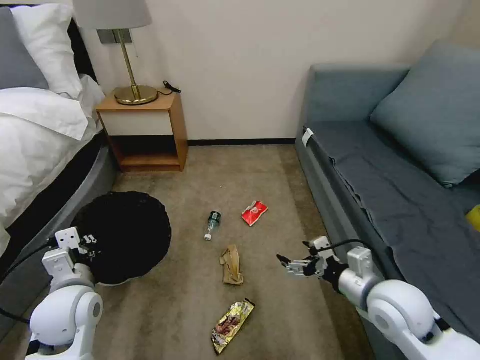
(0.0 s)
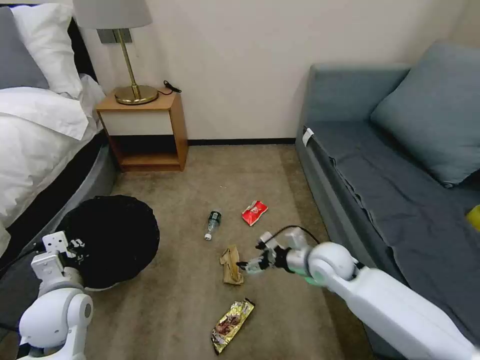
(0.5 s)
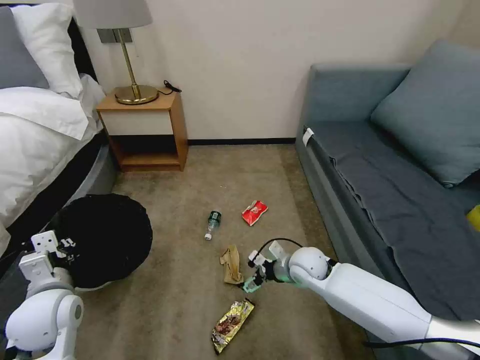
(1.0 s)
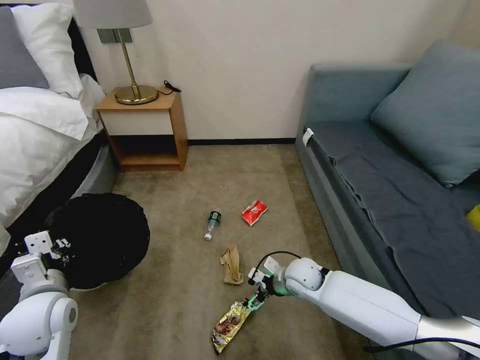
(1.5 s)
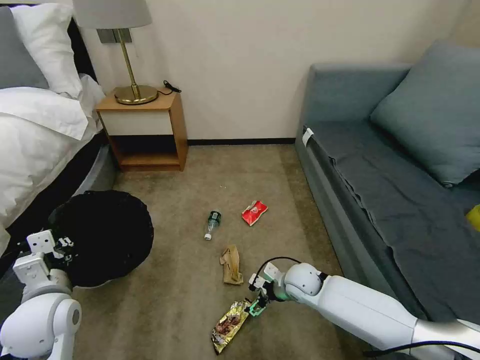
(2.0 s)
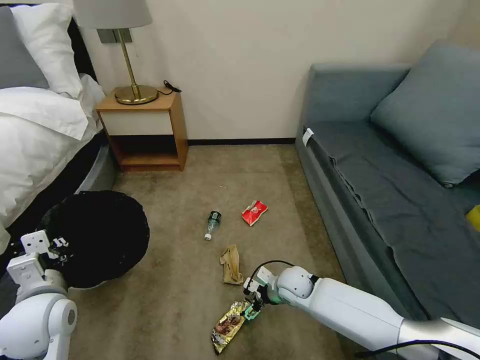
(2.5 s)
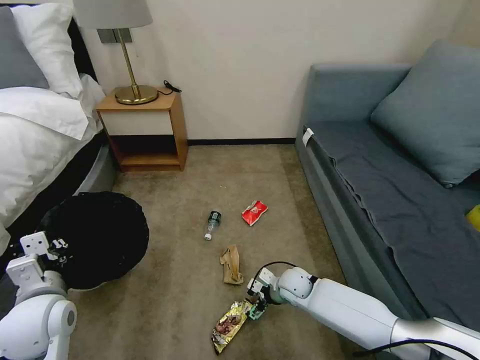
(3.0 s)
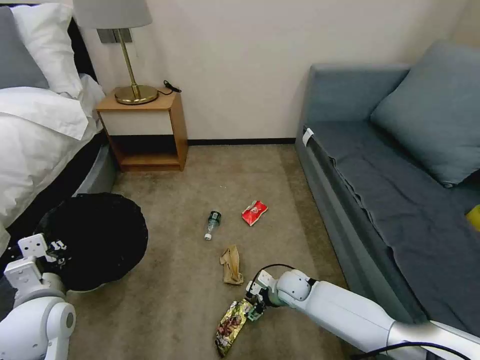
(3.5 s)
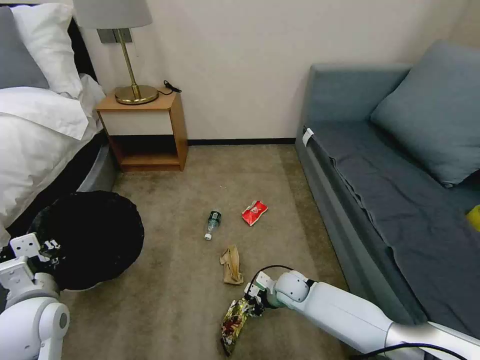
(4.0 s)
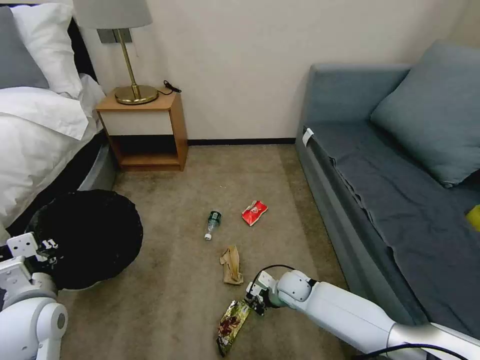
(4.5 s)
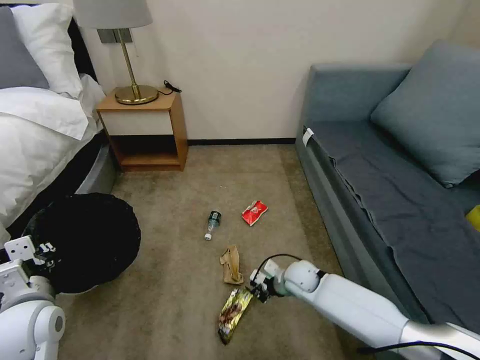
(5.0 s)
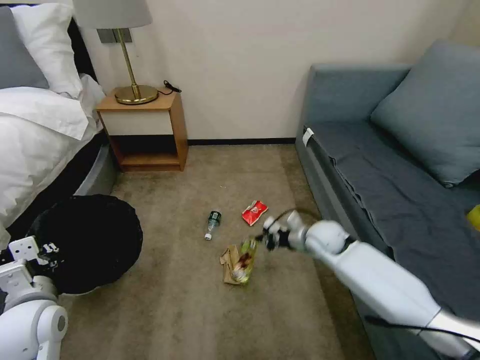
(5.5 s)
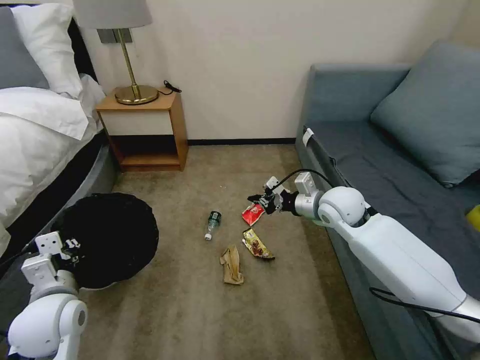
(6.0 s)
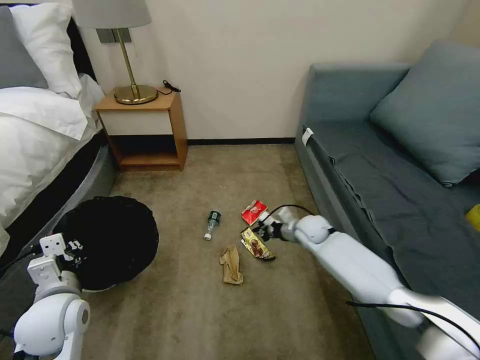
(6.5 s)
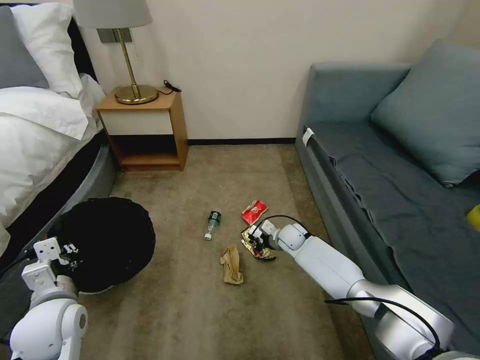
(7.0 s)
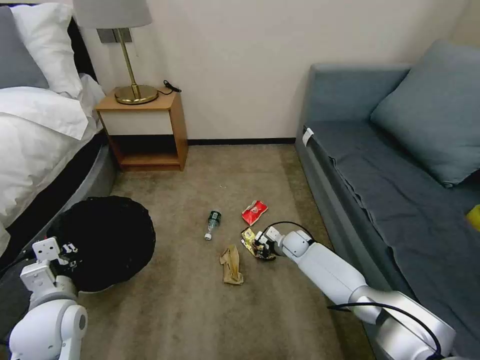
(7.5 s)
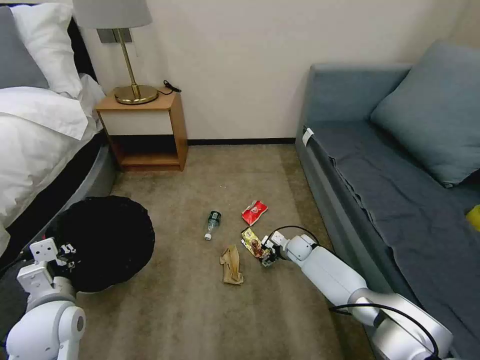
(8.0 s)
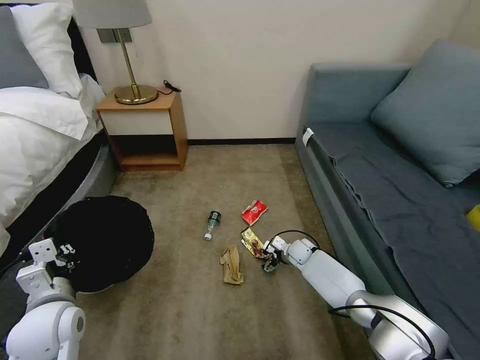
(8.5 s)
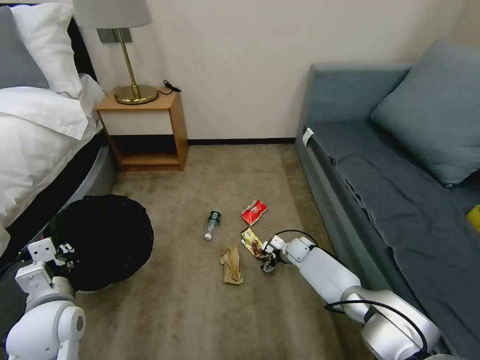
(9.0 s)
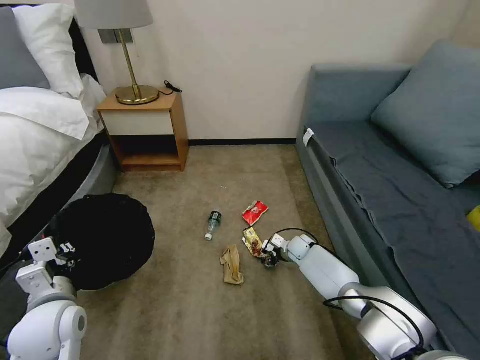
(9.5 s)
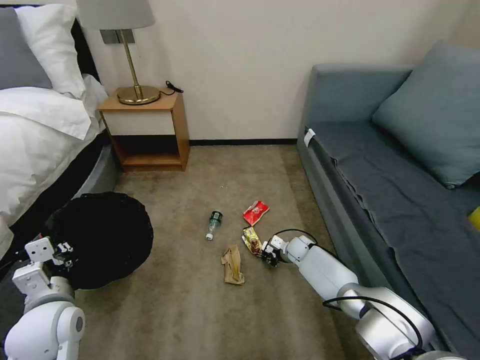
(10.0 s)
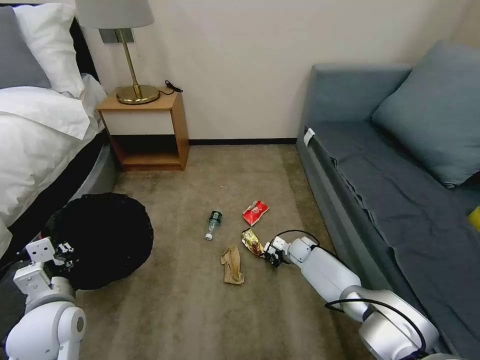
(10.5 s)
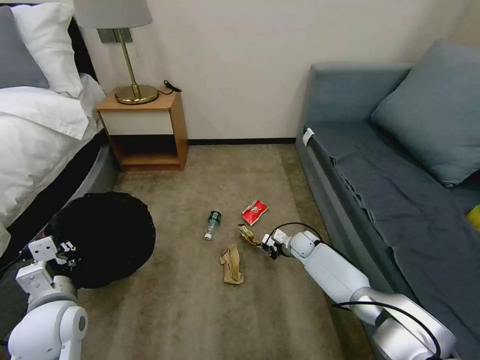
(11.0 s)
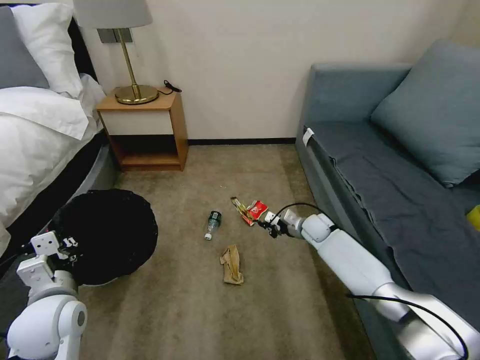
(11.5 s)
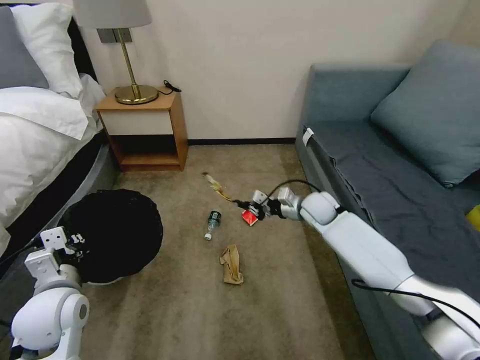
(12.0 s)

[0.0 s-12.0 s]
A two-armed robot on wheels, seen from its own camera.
Task of the whole recording: Pick up the trash bin, then pick up the garbage on the floor and place it into the trash bin.
0.0 to 2.0 s: The right gripper heads downward, forward and to the left, covering about 25 cm.
2.0 to 4.0 s: The right gripper changes place by some 5 cm, and closes up.
4.0 to 6.0 s: The right gripper goes some 25 cm upward, and closes its fingers.
6.0 to 8.0 s: The right gripper moves downward, approximately 25 cm, and opens.
8.0 to 10.0 s: The right gripper closes up.
10.0 to 12.0 s: The right gripper heads upward, covering about 20 cm.

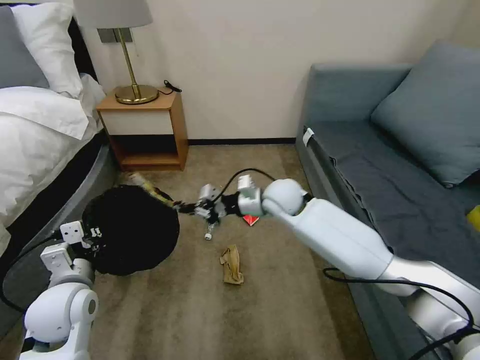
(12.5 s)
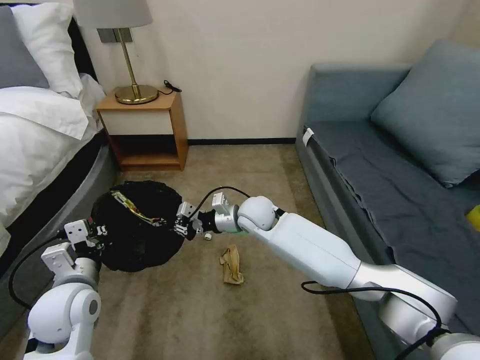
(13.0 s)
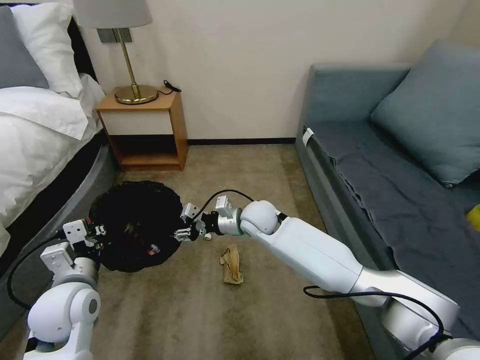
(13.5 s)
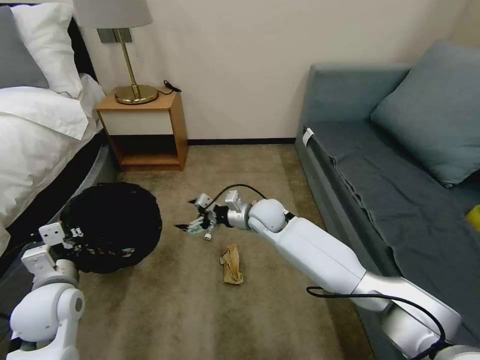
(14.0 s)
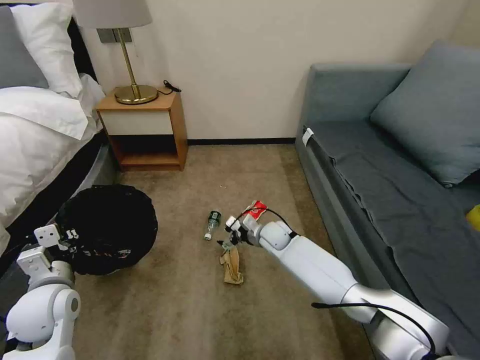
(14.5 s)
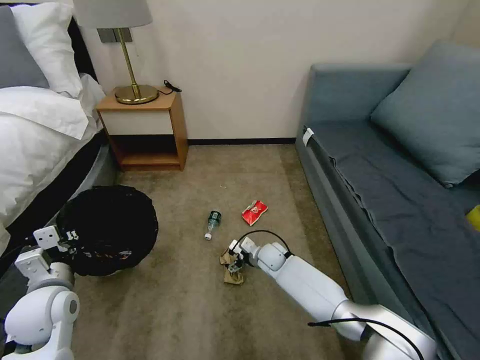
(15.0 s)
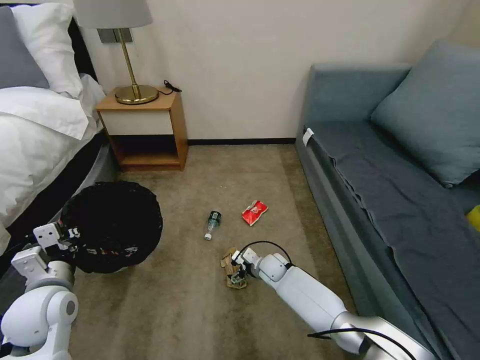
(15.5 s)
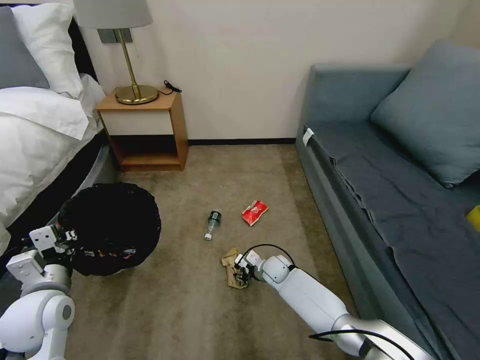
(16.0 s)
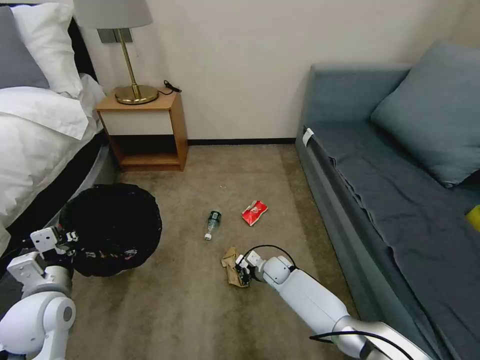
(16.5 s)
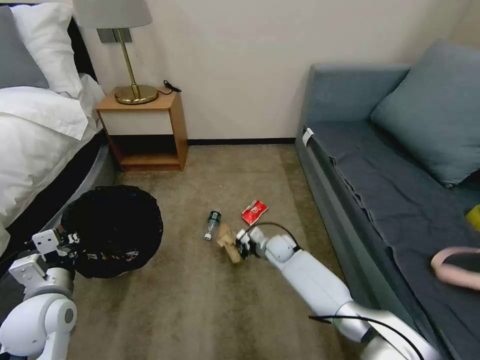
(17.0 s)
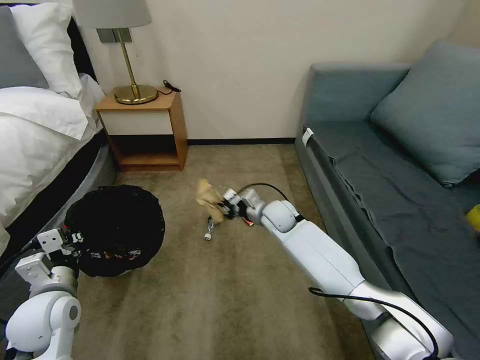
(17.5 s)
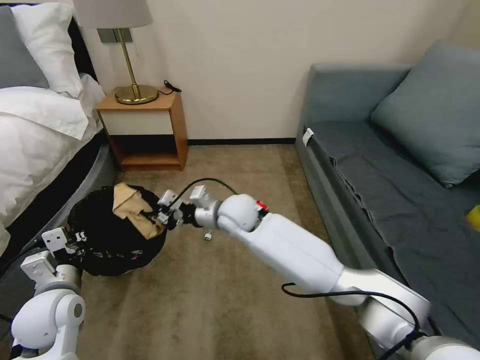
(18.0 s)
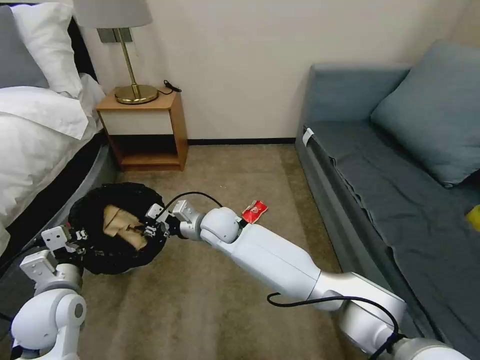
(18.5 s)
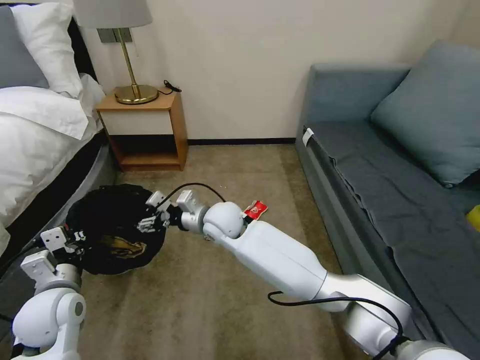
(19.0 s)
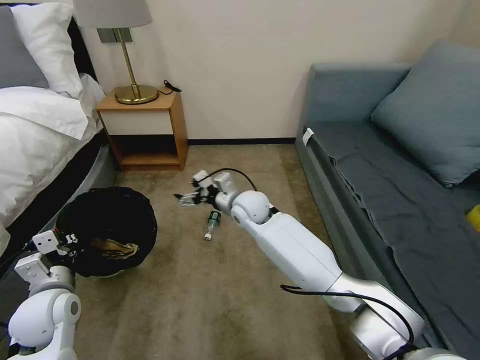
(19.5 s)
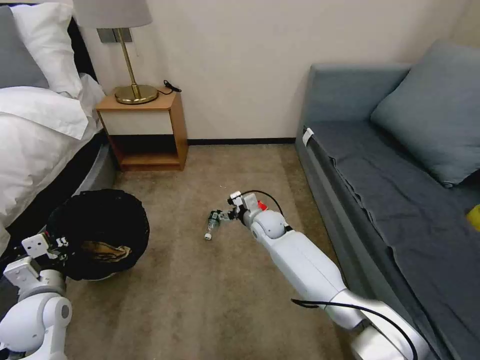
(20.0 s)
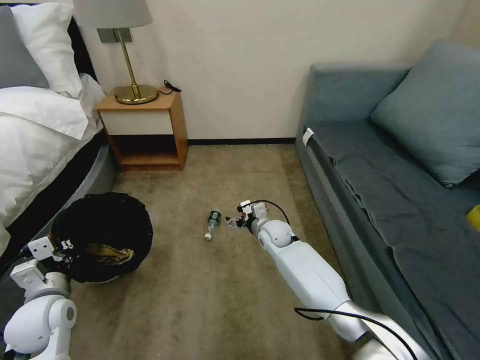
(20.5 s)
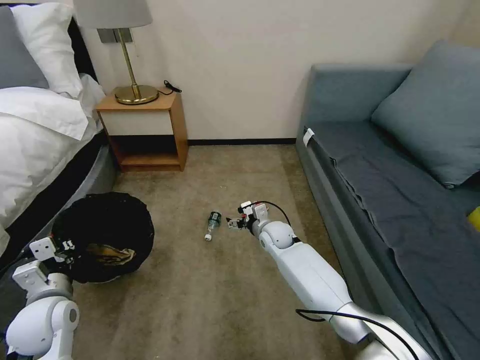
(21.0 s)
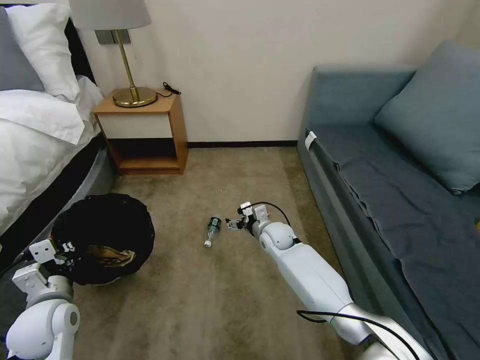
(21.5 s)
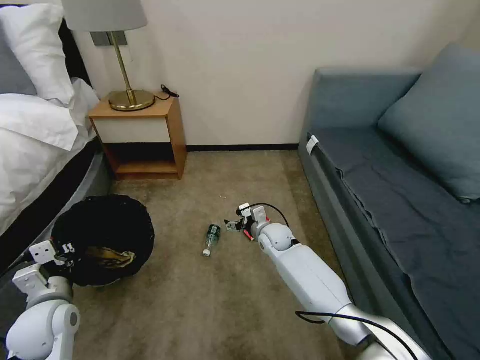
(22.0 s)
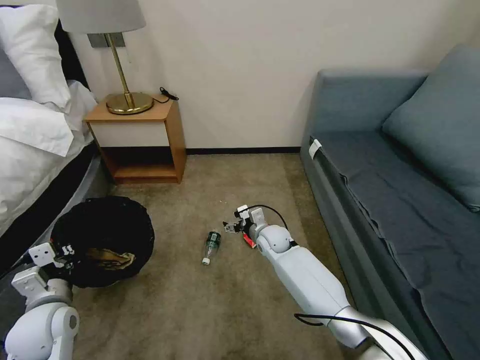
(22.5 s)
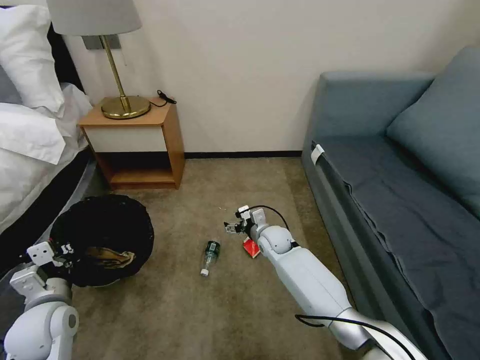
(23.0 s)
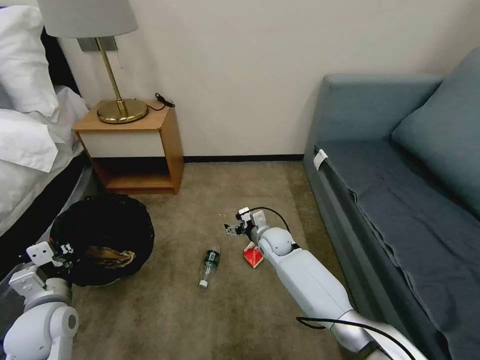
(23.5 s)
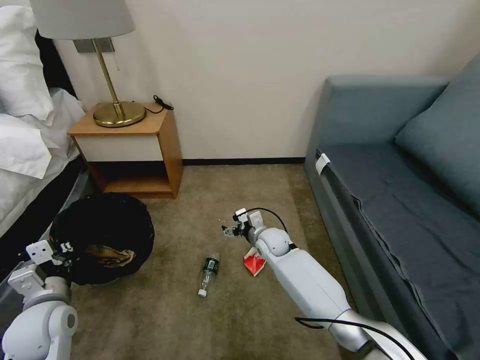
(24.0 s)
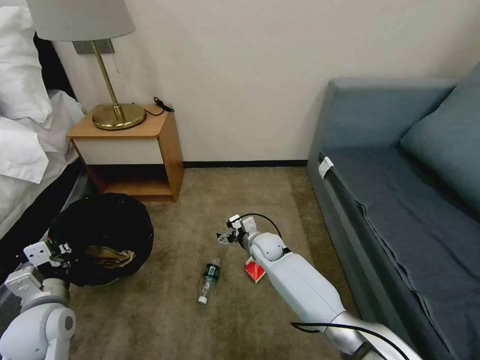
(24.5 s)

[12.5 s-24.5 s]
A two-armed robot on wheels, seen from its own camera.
Task of the whole recording: Pick up the trash bin, then pick up the garbage on the floor and place it into the trash bin.
12.5 to 14.5 s: The right gripper travels downward by some 15 cm, and opens.
14.5 to 16.5 s: The right gripper shifts some 15 cm downward and backward, and closes up.
16.5 to 18.5 s: The right gripper moves upward and to the left, roughly 30 cm.
18.5 to 20.5 s: The right gripper moves to the right and downward, roughly 20 cm, and opens.

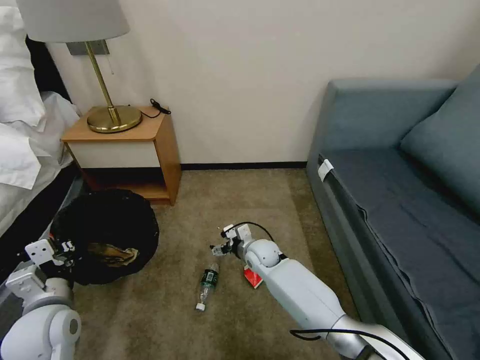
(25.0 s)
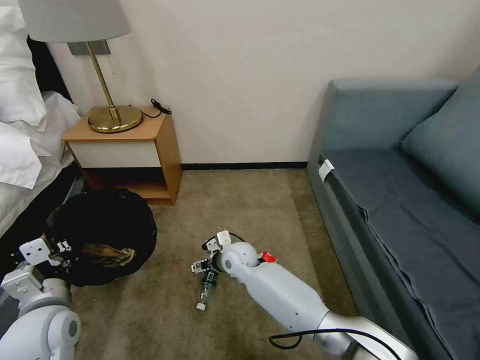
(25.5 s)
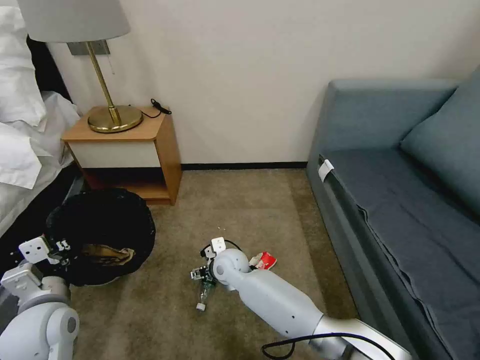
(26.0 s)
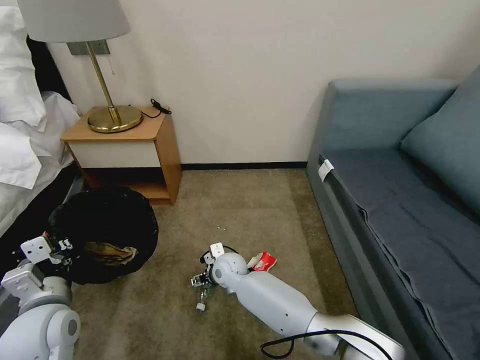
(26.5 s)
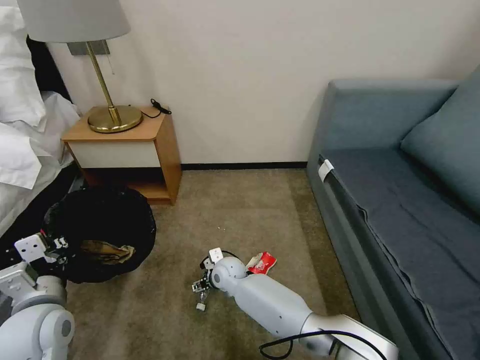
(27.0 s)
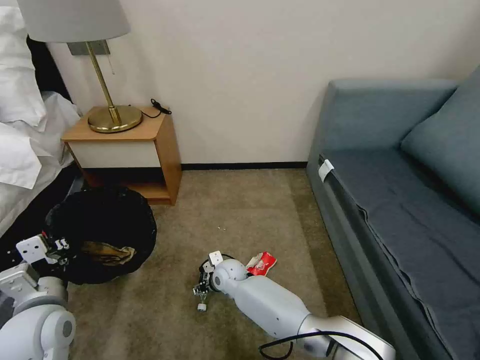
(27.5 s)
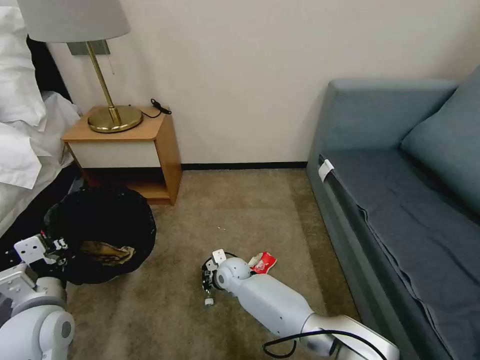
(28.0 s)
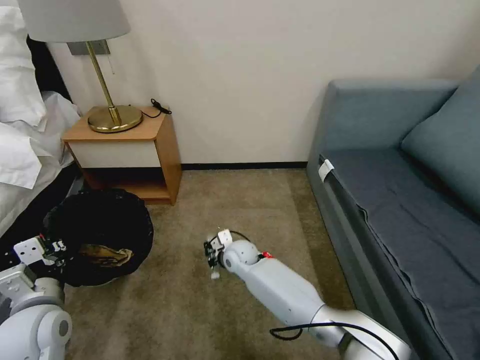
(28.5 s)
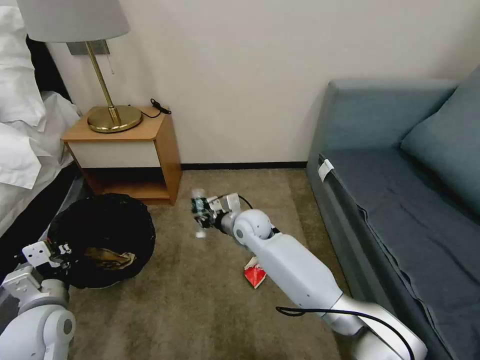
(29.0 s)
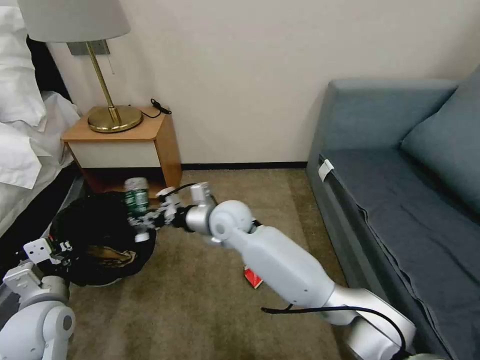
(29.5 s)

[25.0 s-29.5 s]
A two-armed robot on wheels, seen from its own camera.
Task of the whole recording: Pick up the trash bin, then pick up the garbage on the floor and place it into the trash bin.
25.0 to 27.0 s: The right gripper heads to the left, covering about 10 cm.
27.0 to 29.5 s: The right gripper is displaced upward by approximately 20 cm, and closes its fingers.
